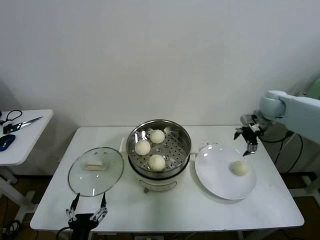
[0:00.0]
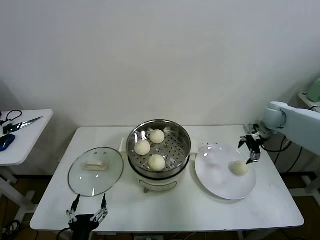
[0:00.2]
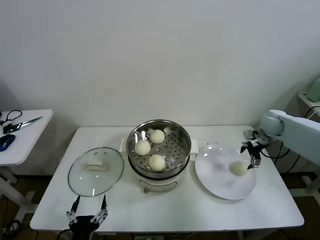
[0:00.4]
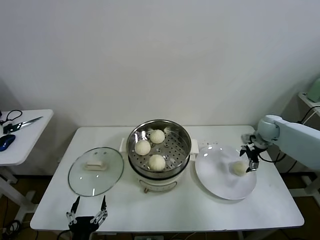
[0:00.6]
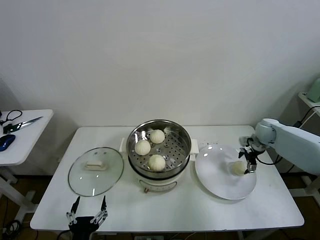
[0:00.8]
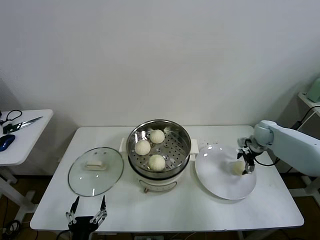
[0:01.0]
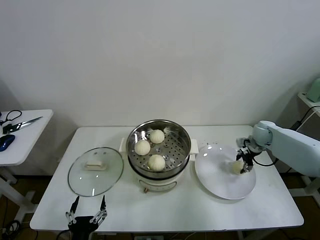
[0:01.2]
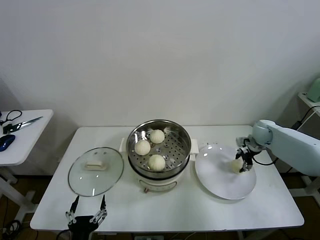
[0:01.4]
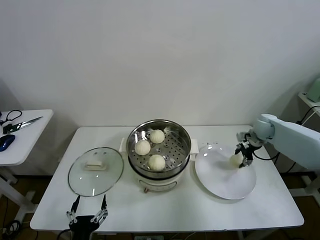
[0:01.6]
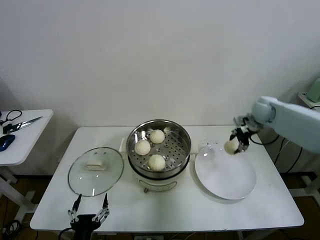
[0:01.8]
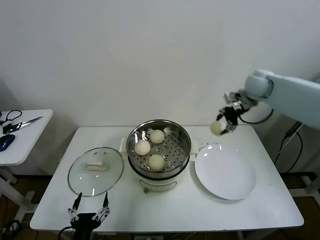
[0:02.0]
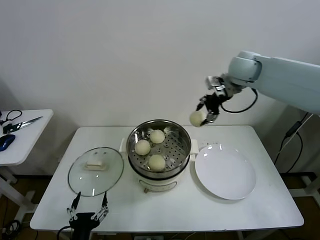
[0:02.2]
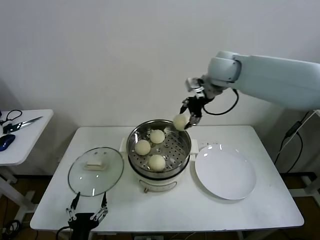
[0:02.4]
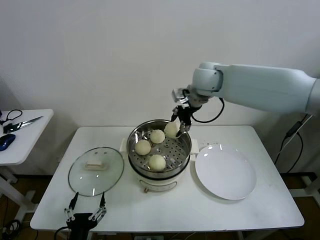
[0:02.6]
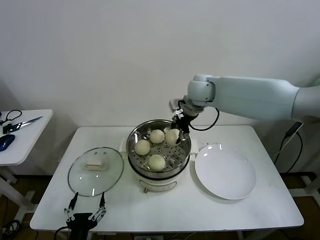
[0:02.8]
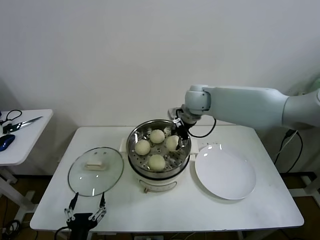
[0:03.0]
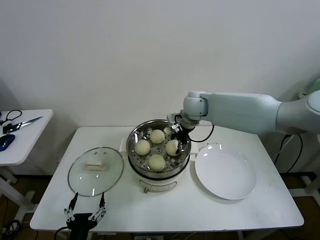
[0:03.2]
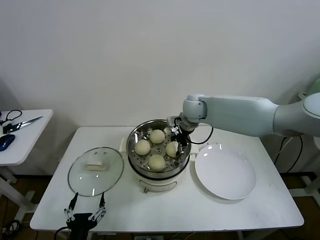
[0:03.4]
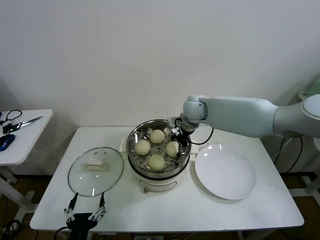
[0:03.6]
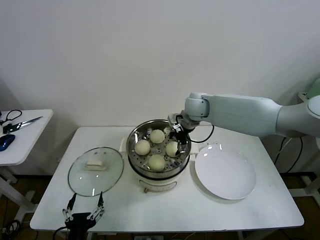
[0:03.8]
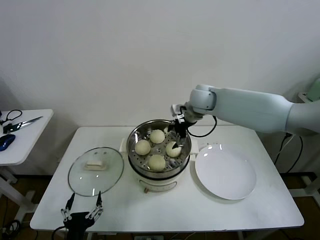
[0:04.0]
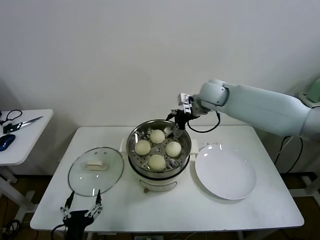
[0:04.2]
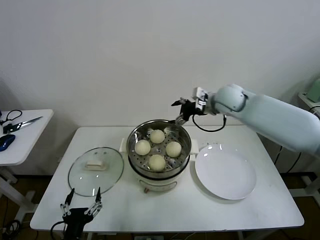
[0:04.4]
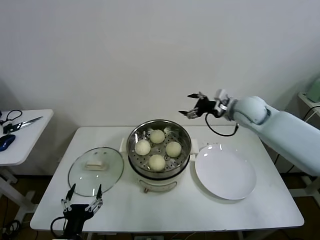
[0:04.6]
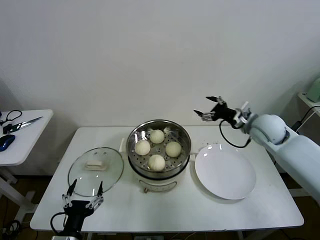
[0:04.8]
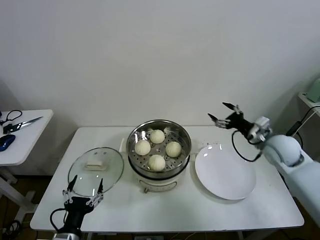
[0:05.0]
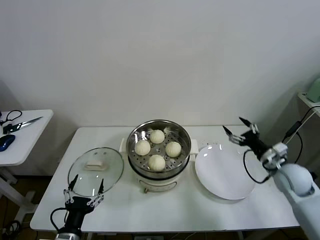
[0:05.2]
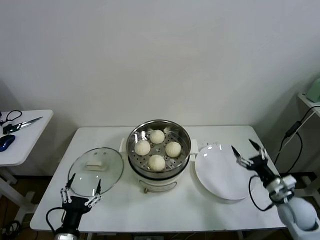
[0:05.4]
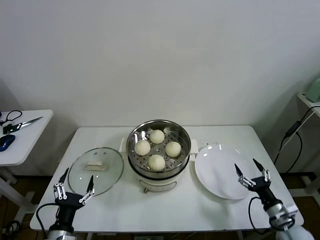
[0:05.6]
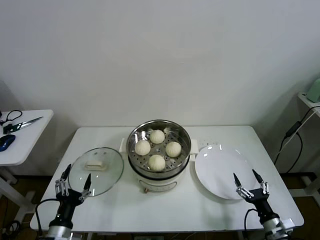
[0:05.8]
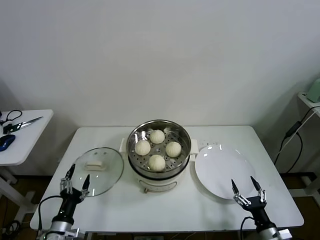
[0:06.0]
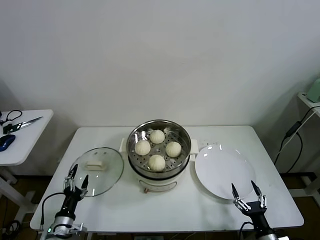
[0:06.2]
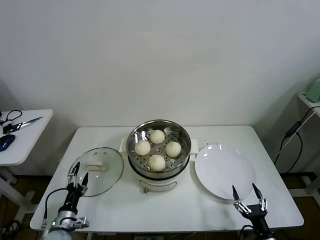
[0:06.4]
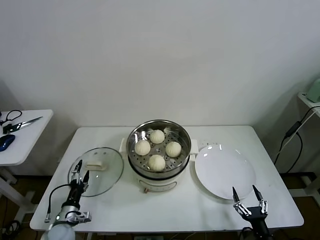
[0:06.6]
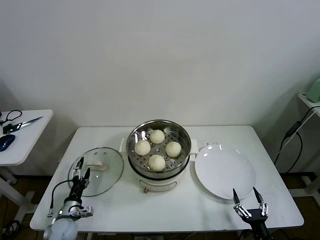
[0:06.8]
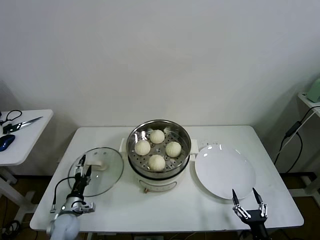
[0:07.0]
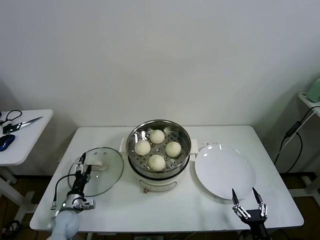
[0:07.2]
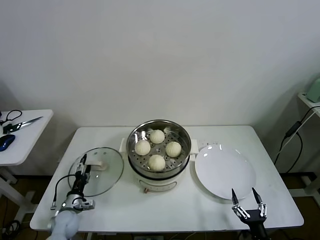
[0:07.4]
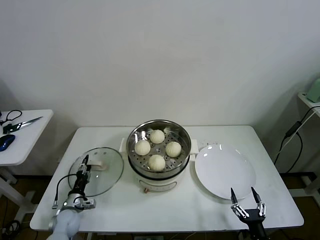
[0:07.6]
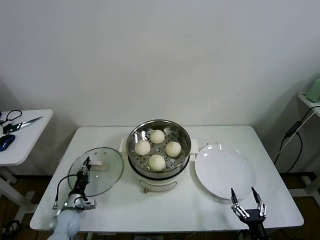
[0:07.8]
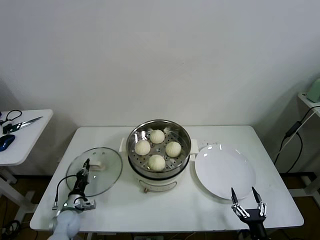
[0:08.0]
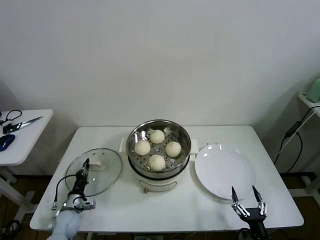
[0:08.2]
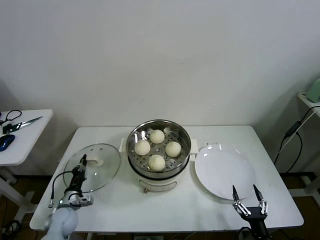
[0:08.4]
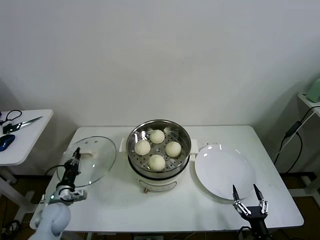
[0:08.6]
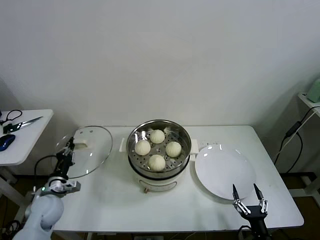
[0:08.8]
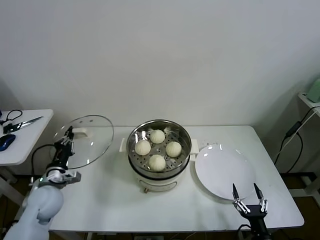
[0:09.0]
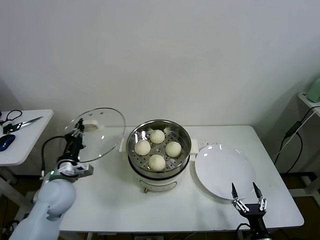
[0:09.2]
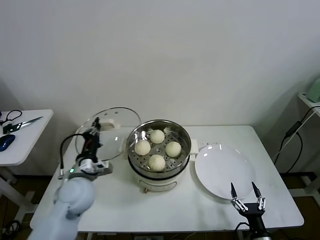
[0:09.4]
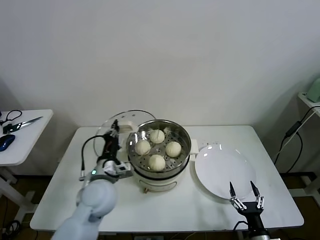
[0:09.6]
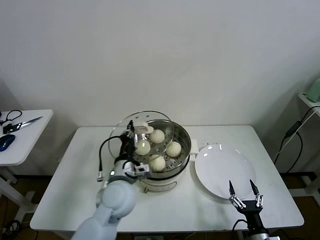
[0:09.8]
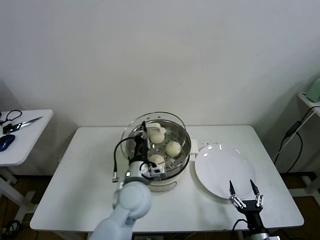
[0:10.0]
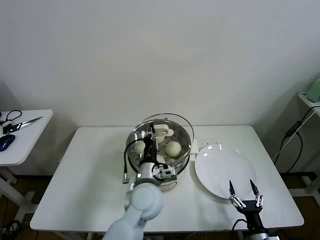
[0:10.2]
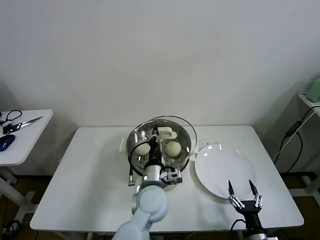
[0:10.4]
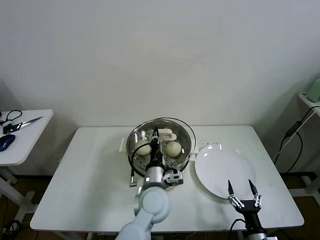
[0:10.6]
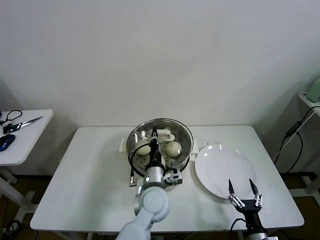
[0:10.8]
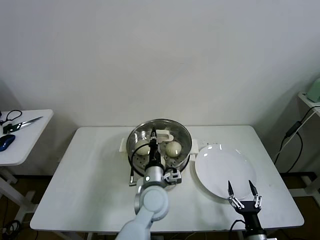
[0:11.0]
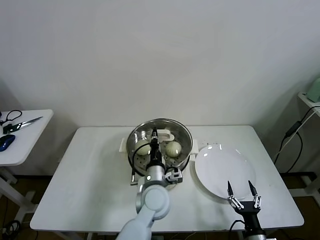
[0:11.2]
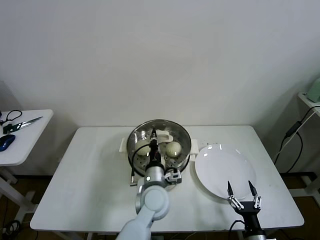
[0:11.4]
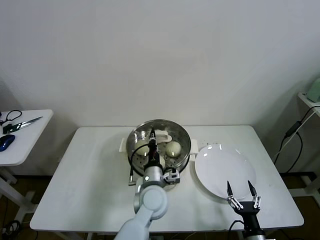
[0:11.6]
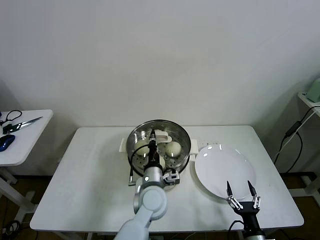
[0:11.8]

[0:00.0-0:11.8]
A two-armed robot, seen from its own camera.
Task of the whole recording: take steamed baozi put them in steamer then cover it.
Step, 0:00.0 to 0:01.2: Grasp the baozi in the plate with right gripper.
Step, 0:01.4 to 0:03.6: Place the baozi on the steamer with right gripper.
Step, 0:03.8 to 0:08.0: Grasp the pot lid with left gripper.
0:00.0 to 0:01.4: The right gripper travels downward by some 10 cm, and closes.
0:01.4 to 0:03.0: The right gripper is displaced to the left and upward by approximately 35 cm.
0:03.0 to 0:04.4: The right gripper goes about 10 cm to the right, and opens.
0:04.4 to 0:06.0: The right gripper heads backward and downward, covering about 50 cm. The left gripper goes about 10 cm to the left, forward and downward.
0:06.0 to 0:07.4: The right gripper changes place by about 5 cm; the left gripper goes about 15 cm forward and downward.
0:07.4 to 0:08.8: The left gripper goes approximately 10 cm upward, and closes its fingers.
0:08.8 to 0:10.4: The left gripper shifts approximately 35 cm to the right.
0:10.4 to 0:11.8: The grippers stay close to where they were, moving slightly.

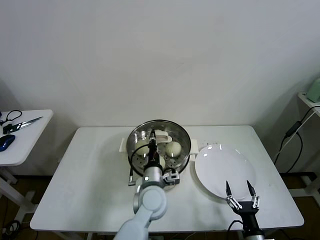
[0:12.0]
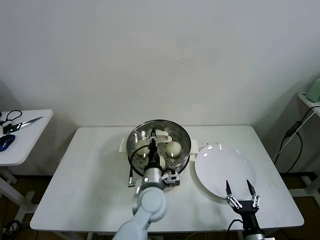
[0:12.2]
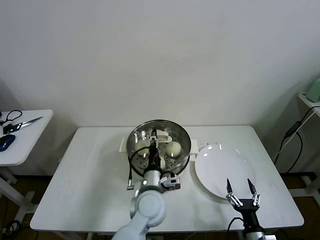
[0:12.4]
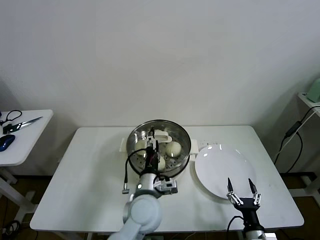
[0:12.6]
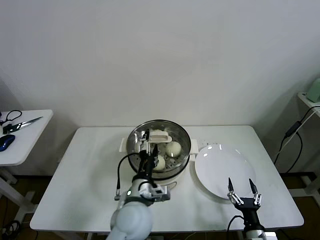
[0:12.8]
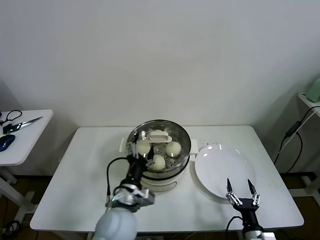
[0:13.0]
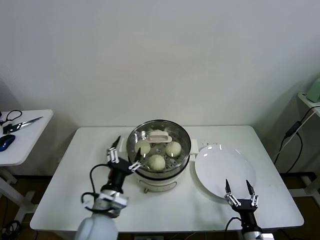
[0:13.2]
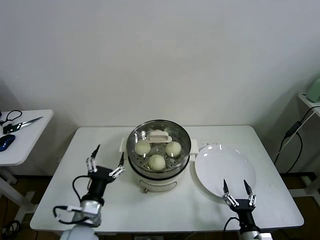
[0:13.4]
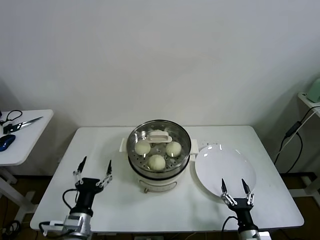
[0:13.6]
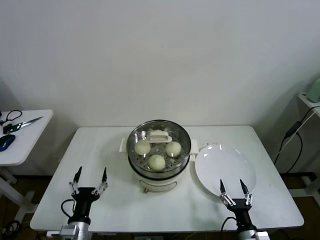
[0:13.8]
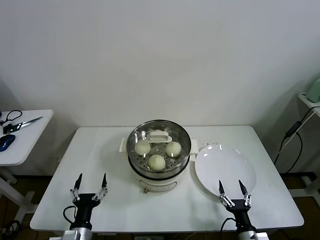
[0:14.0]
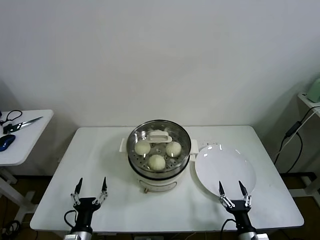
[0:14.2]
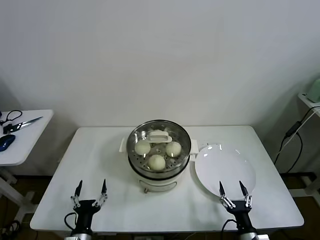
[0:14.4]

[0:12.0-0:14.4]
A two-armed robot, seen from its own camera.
Task of the whole recording: take steamed baozi put them in steamer then cover it.
0:12.0 to 0:13.2: The left gripper shifts some 15 cm to the left and backward, and opens.
0:13.2 to 0:14.4: The left gripper heads downward, to the left and backward, covering some 20 cm.

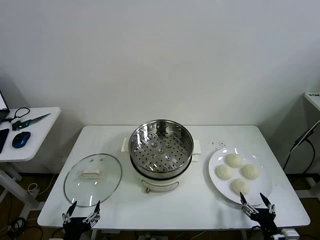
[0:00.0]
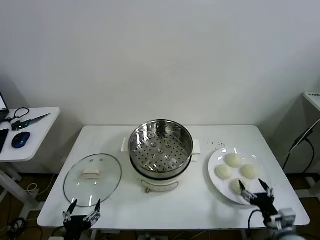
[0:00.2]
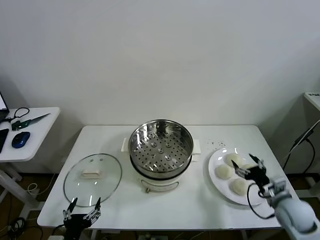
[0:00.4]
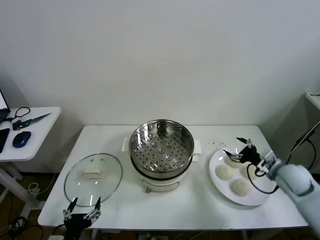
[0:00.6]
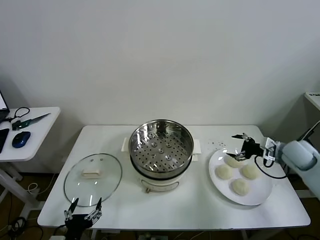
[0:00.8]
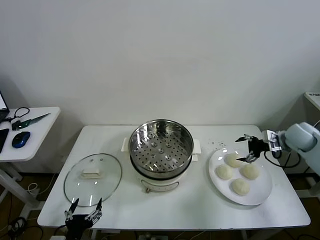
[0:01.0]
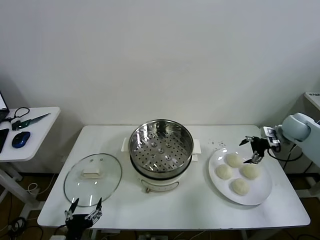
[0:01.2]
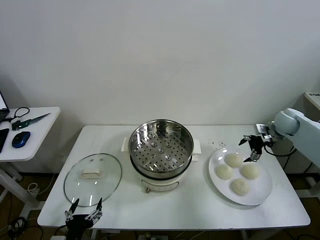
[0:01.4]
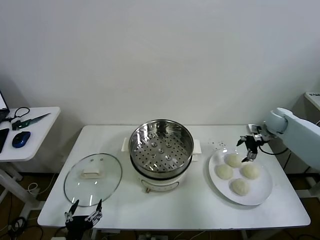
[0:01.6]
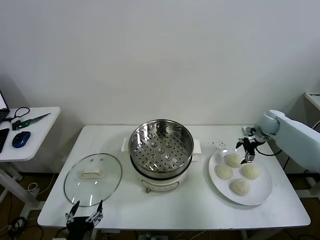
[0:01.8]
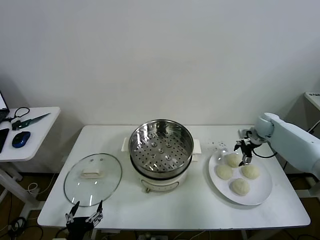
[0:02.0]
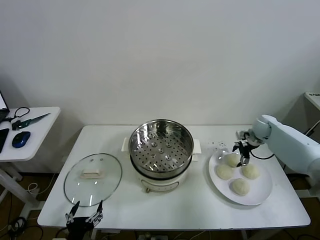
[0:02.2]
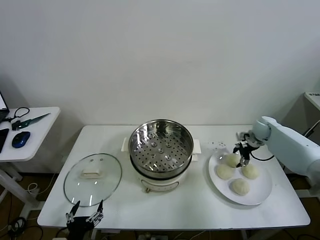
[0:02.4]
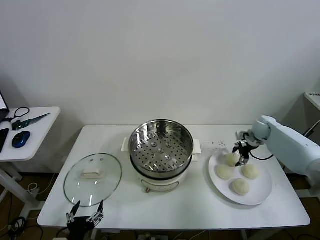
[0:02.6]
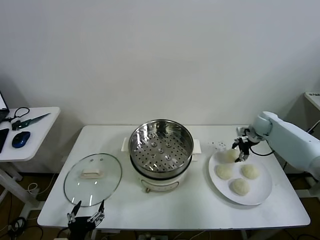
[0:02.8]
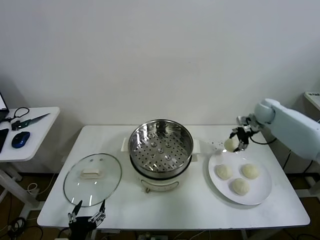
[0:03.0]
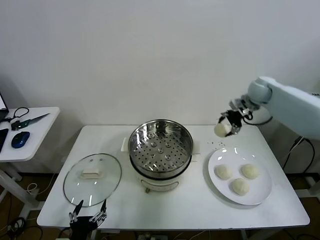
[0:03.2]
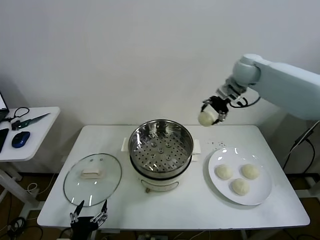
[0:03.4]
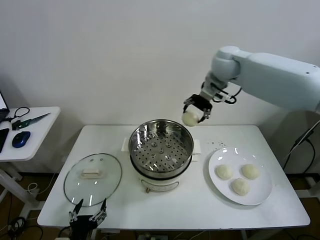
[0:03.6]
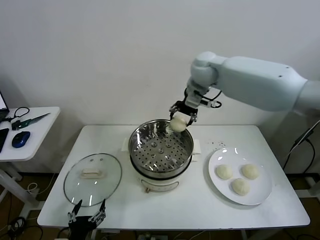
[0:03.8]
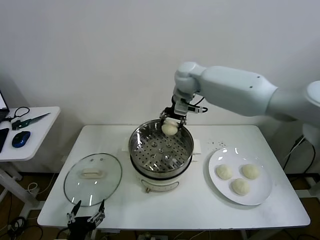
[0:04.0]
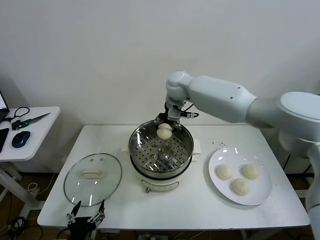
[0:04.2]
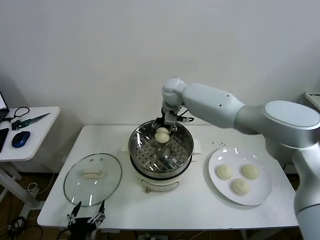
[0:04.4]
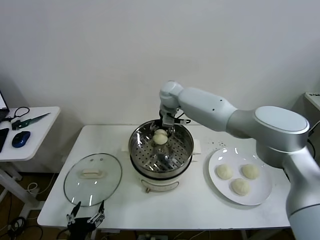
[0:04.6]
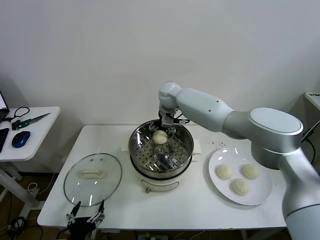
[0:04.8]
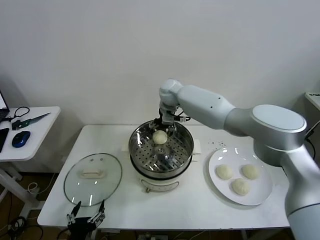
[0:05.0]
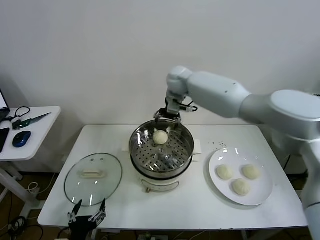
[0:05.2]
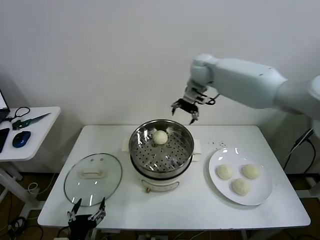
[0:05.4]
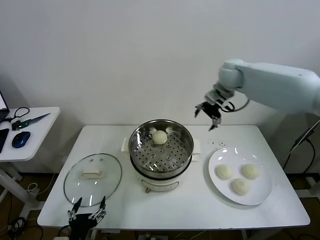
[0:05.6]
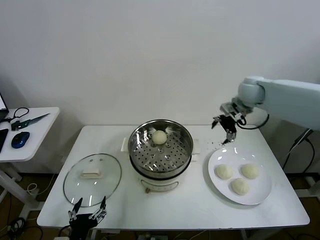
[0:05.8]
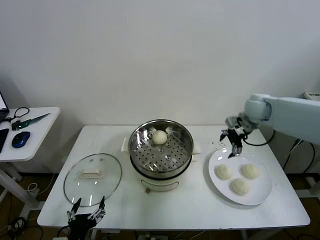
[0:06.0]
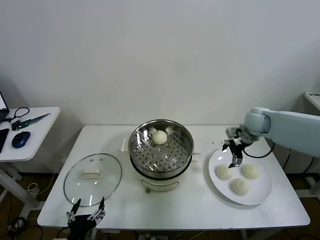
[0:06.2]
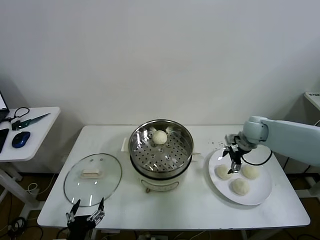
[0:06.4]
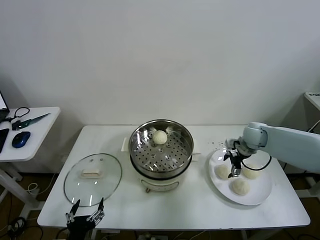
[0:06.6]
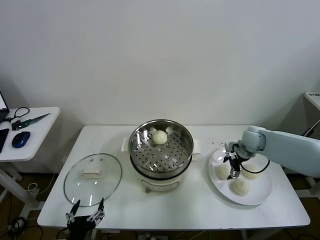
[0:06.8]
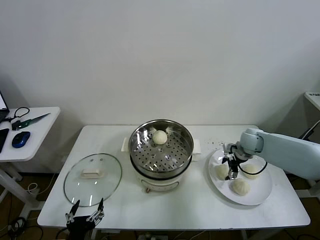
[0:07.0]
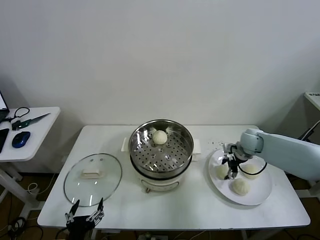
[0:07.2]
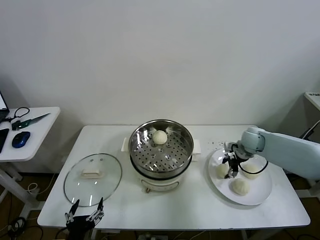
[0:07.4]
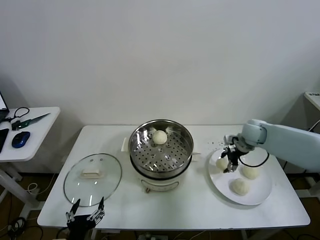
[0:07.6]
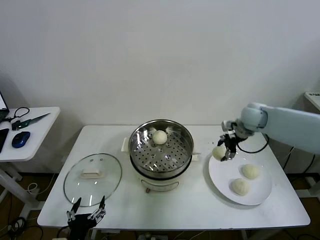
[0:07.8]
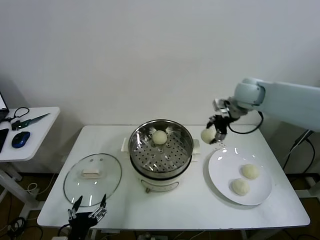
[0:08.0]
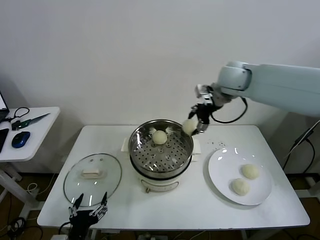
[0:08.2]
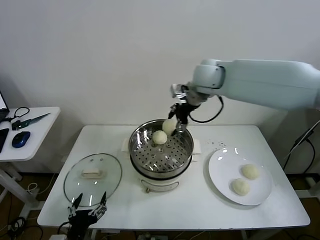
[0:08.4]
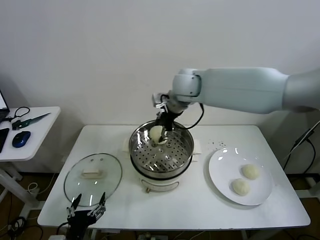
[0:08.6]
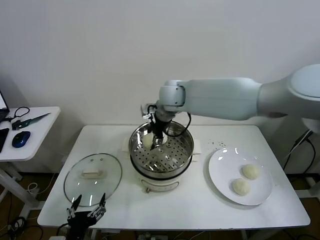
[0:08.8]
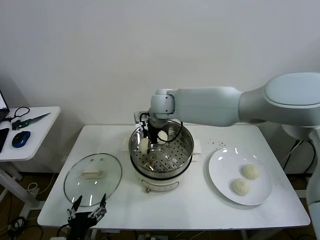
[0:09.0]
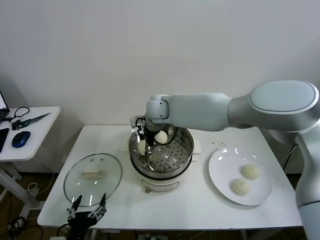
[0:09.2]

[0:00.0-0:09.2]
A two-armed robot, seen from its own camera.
Task of the whole recording: take steamed baozi put them in steamer then cover it.
Step, 0:00.0 to 0:02.4: Grasp the baozi in the plate with right gripper.
Step, 0:02.6 to 0:04.8: Place the baozi on the steamer with right gripper.
Step, 0:05.2 to 0:07.2: Grasp the baozi in the plate with right gripper.
0:01.6 to 0:03.0: The right gripper is displaced upward and to the left by approximately 10 cm, and closes.
0:03.0 to 0:04.6: The right gripper travels to the left by roughly 35 cm.
0:04.6 to 0:06.2: The right gripper shifts approximately 30 cm to the right, and opens up.
0:06.2 to 0:07.6: The right gripper reaches about 10 cm downward, then returns, and closes its fingers.
0:07.6 to 0:09.2: The right gripper moves to the left, some 35 cm.
